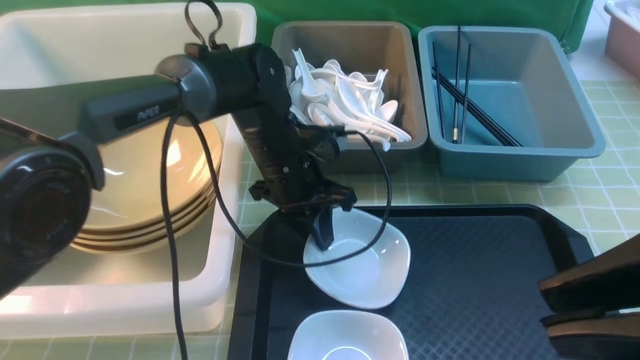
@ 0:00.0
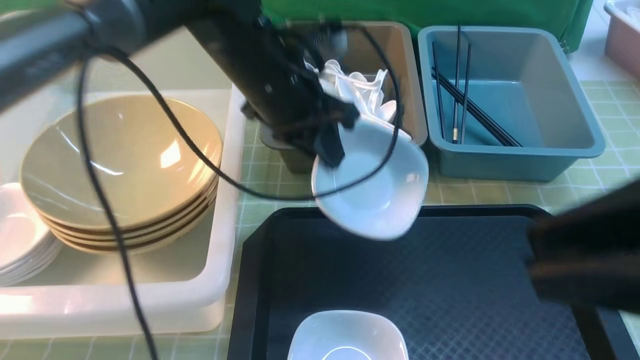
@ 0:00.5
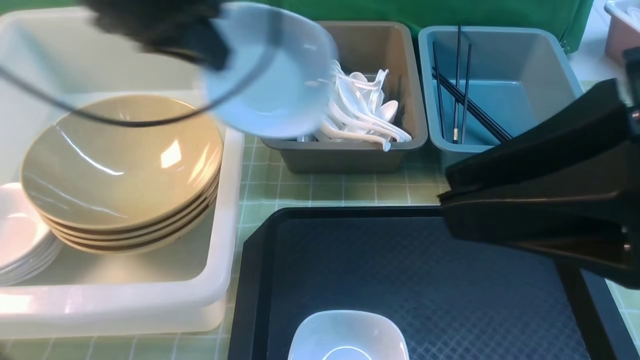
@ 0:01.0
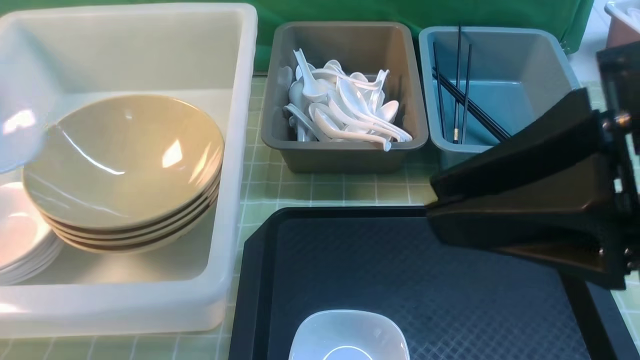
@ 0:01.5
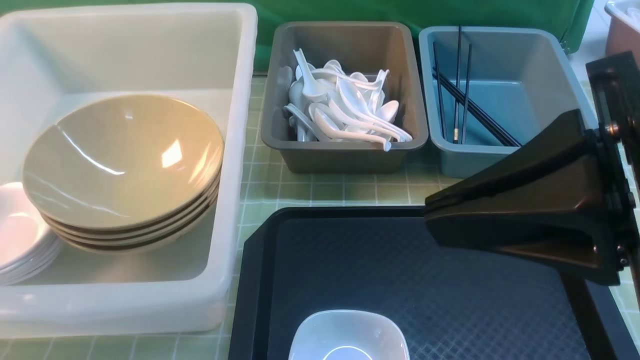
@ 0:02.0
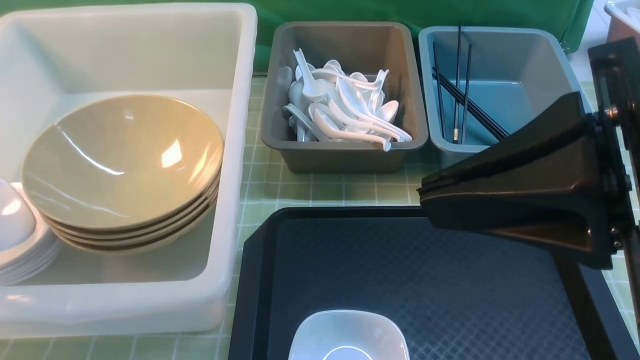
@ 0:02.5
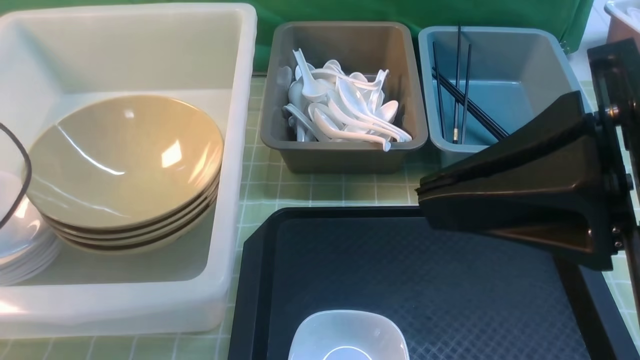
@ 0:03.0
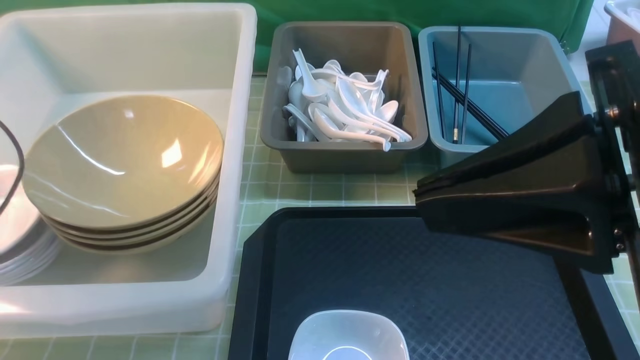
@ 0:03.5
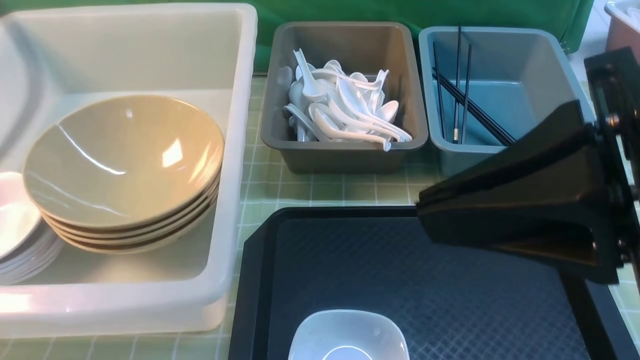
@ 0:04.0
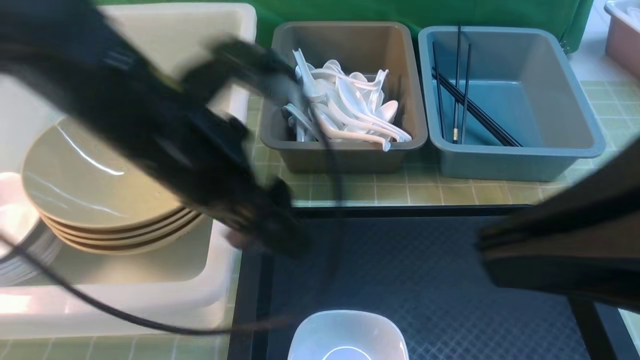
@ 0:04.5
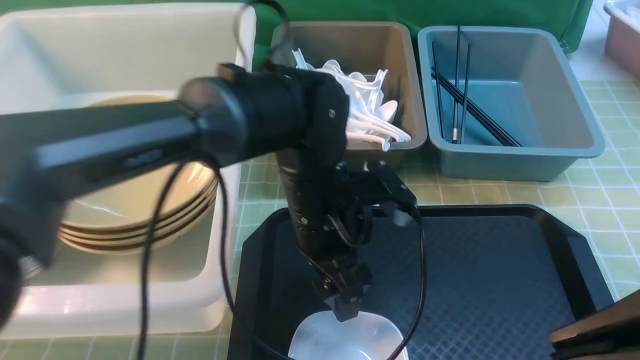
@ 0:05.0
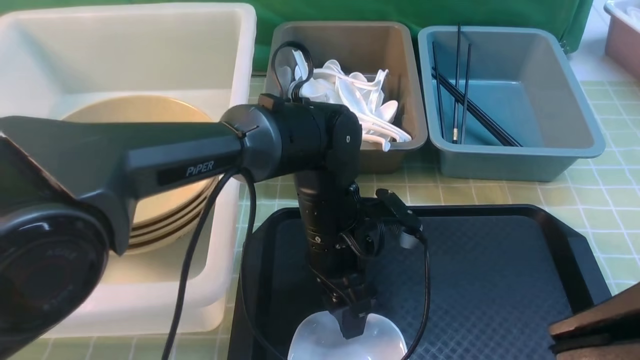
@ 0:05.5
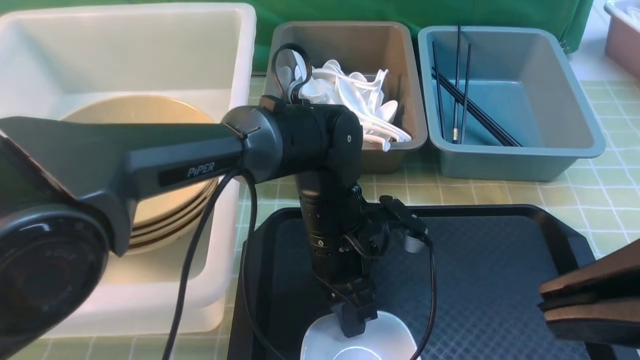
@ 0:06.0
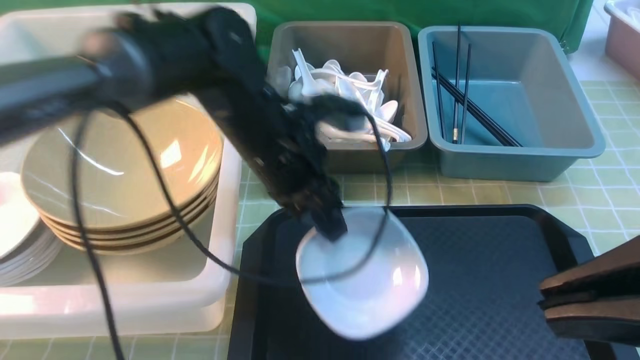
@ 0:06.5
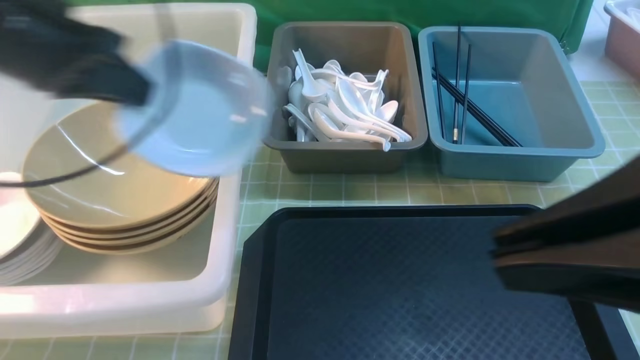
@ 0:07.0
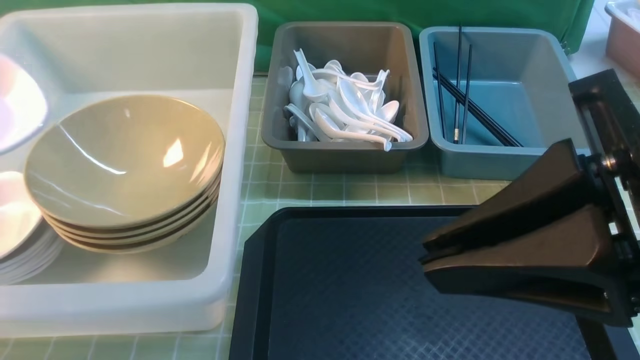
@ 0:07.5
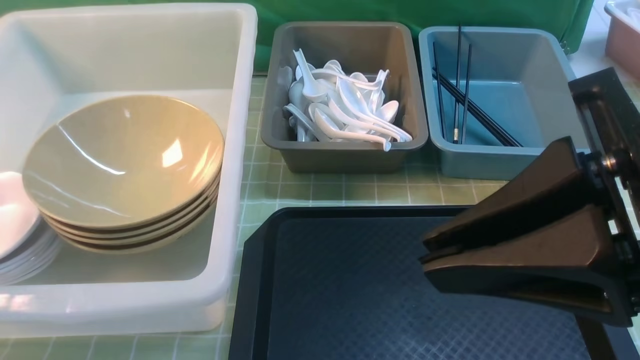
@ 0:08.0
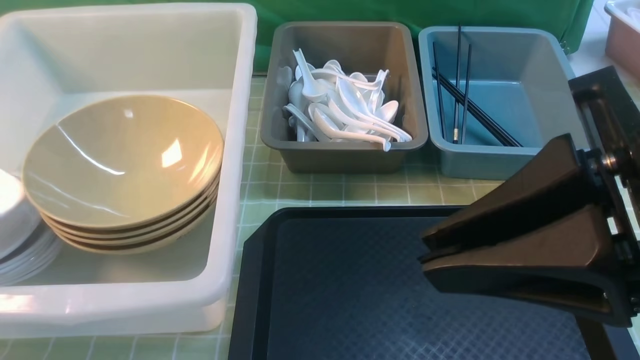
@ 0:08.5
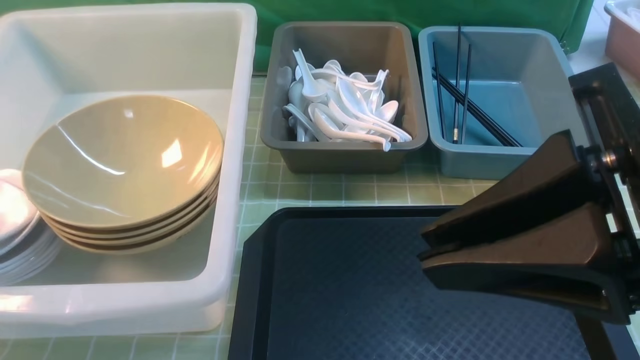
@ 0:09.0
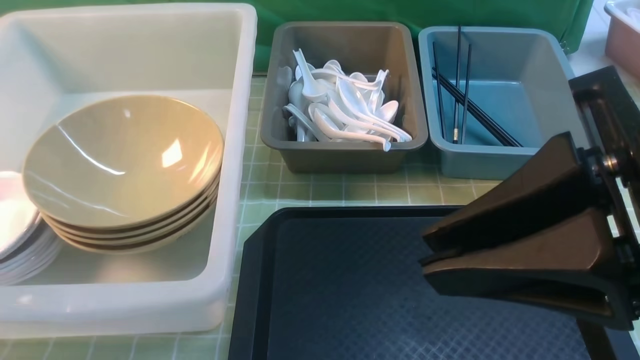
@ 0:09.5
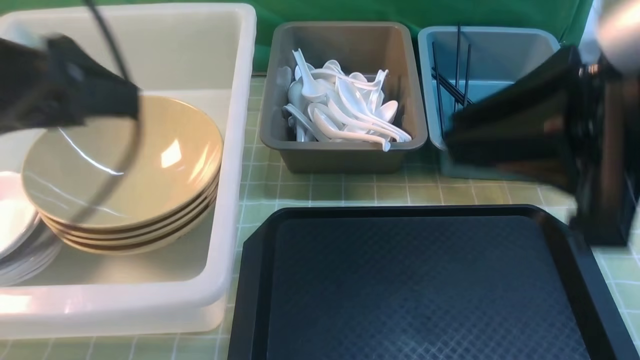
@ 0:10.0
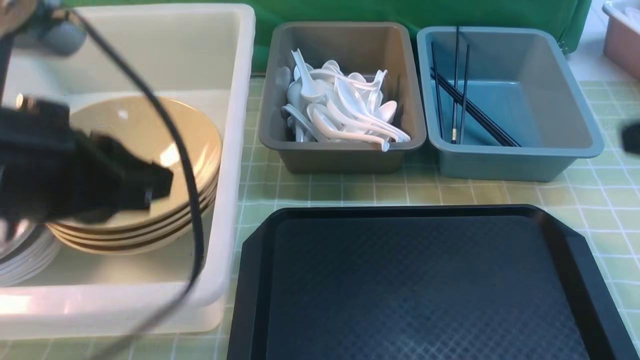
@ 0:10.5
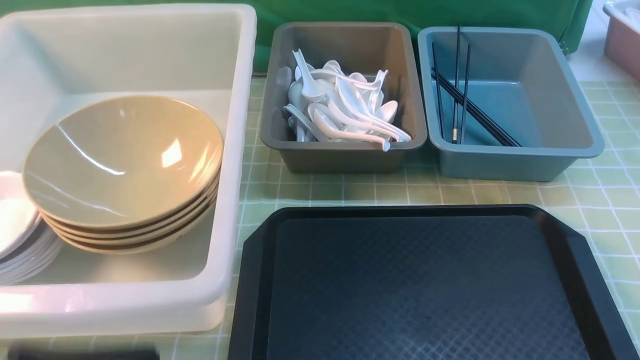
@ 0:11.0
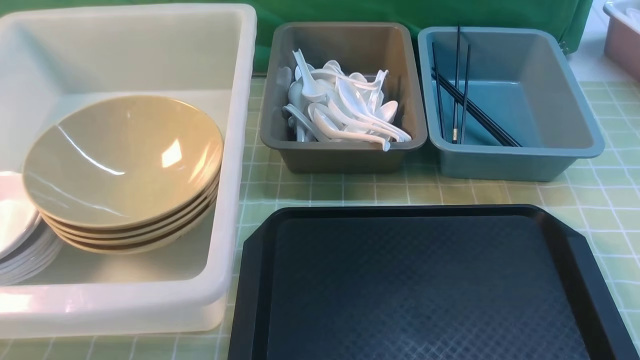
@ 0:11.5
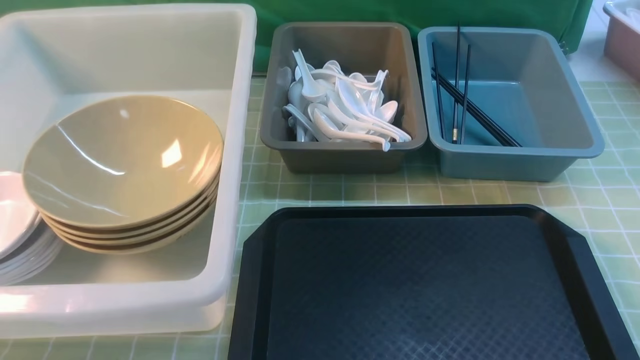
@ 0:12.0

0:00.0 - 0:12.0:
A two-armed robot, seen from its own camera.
Task of the whole recording: on green table put chopsticks spoon bowls plates into blue grey white boxes.
Step, 0:01.0 - 0:03.5: use the left arm to put the plate into the large storage box on the left.
Step, 0:04.0 - 0:06.0: use the left arm to grab the plate.
Step, 0:06.5 - 0:09.5: use the left arm to put the plate into the large storage box on the left.
0:00.0 - 0:02.0: The right gripper moves some 5 cm, while the left gripper heads to the left and upward, covering some 40 cm.
0:02.0 - 0:04.0: The left gripper is displaced to the right by some 15 cm, and opens its fingers.
0:04.0 - 0:06.0: The left gripper is displaced to the right and downward by approximately 35 cm, and closes. The right gripper shifts by roughly 5 cm.
0:06.0 - 0:08.0: The right gripper shifts by approximately 5 cm. Meanwhile the left gripper is displaced to the left by some 40 cm.
0:08.0 - 0:10.0: The right gripper heads forward, covering roughly 5 cm. Meanwhile the left gripper travels to the right and upward by some 20 cm, and opens.
0:10.0 - 0:12.0: The right gripper moves downward, backward and to the right, some 25 cm. Meanwhile the left gripper heads backward and downward, covering roughly 25 cm, and closes up.

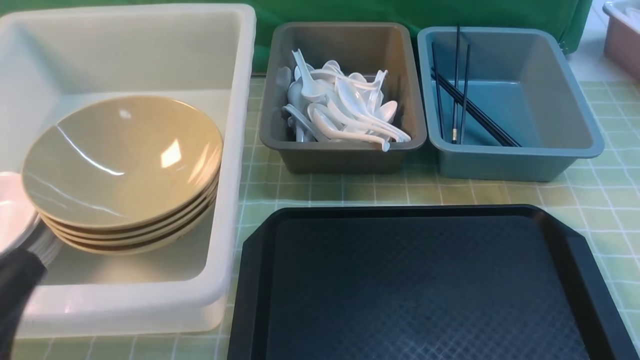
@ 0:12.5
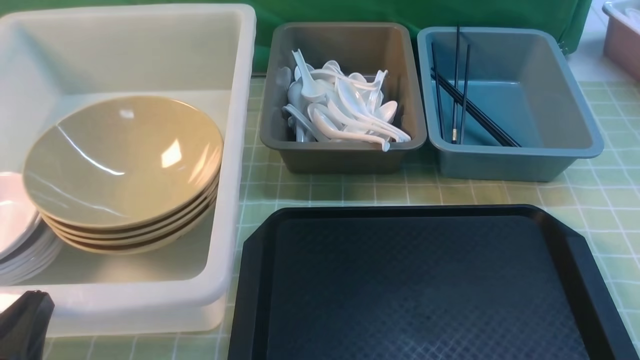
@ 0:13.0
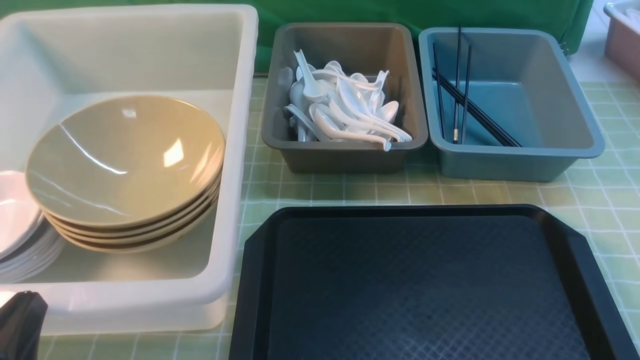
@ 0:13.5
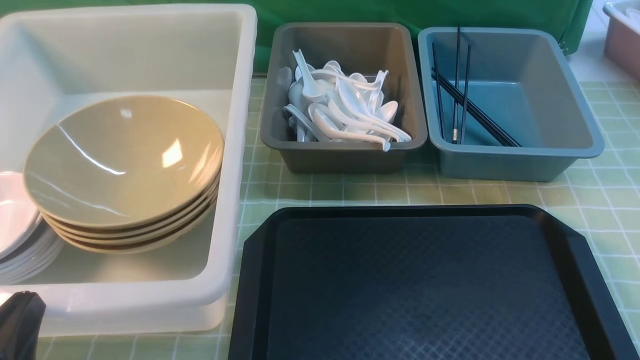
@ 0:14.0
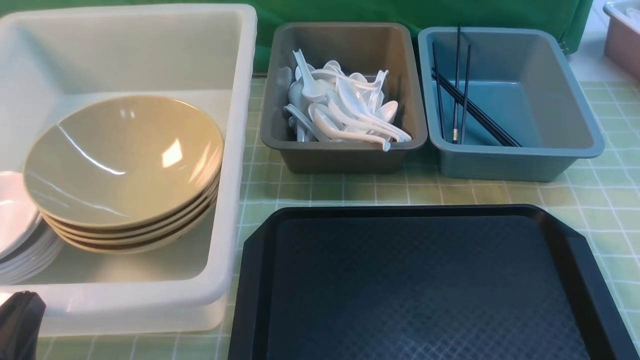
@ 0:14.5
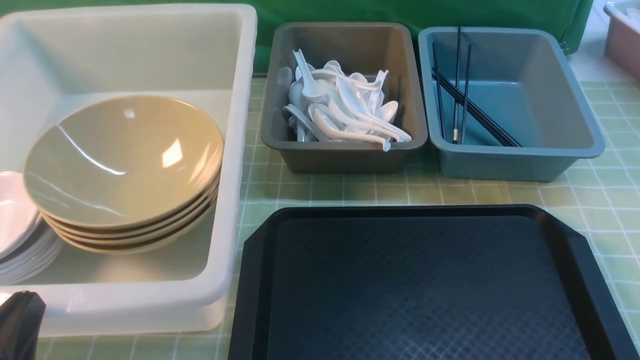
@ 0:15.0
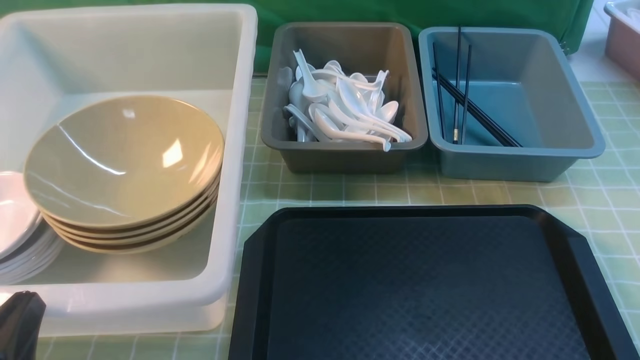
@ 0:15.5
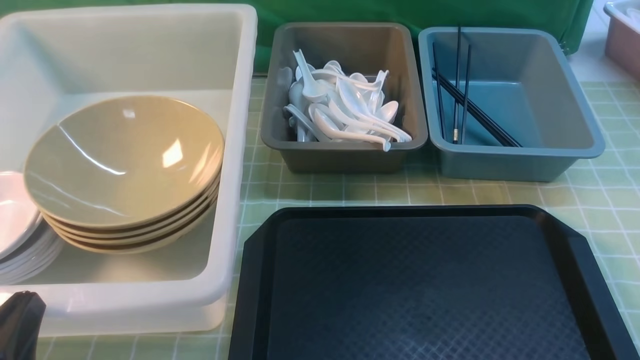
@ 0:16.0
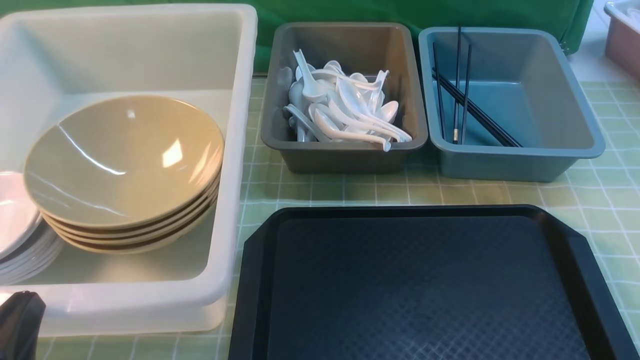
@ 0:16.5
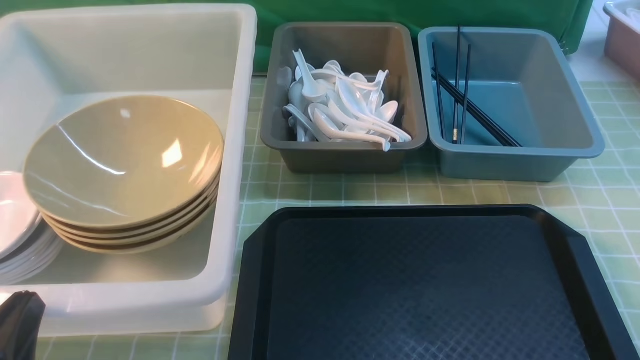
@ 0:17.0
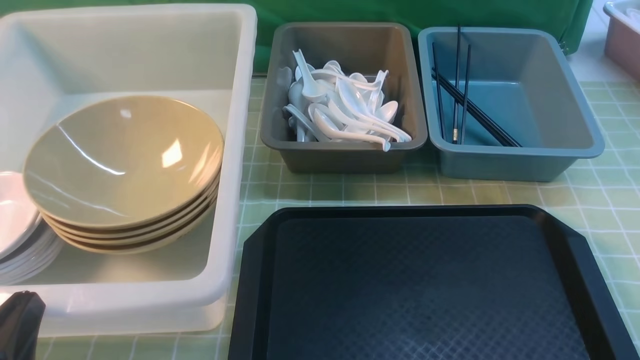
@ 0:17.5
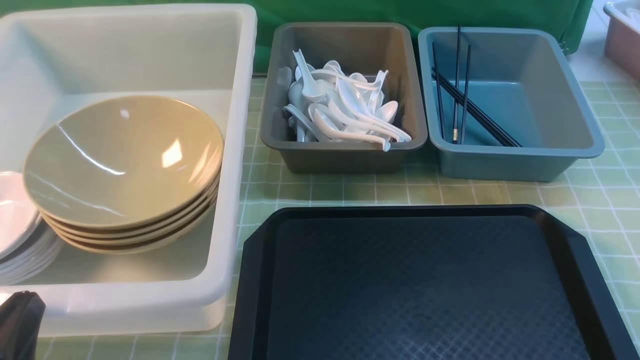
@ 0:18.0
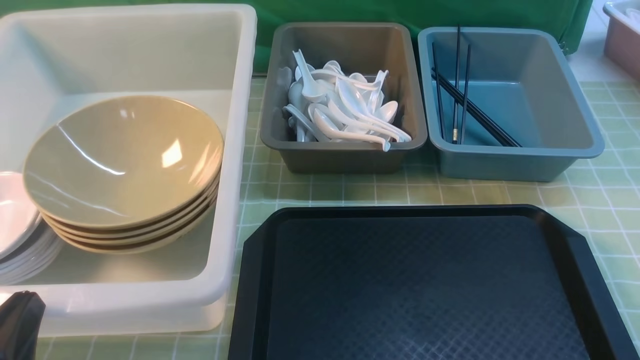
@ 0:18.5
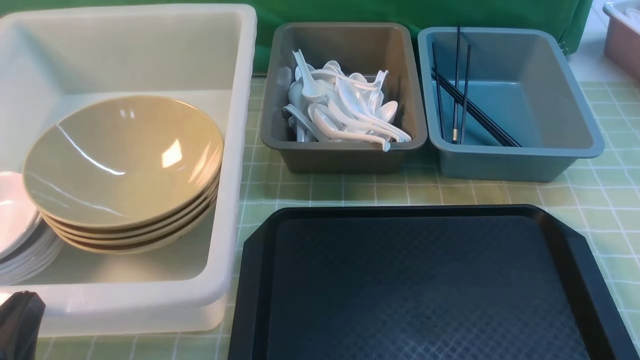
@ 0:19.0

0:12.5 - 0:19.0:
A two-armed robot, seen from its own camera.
Task of the whole recording: on green table put chopsticks spoon bowls plates into blue grey white boxes.
0:12.5 - 0:14.5: The left gripper is displaced downward by roughly 5 cm.
0:17.0 - 0:19.0: The two grippers keep their place.
